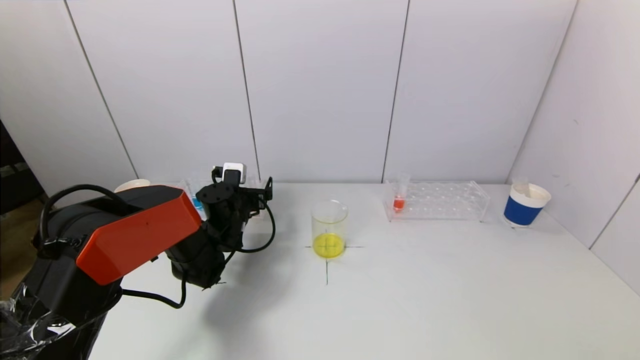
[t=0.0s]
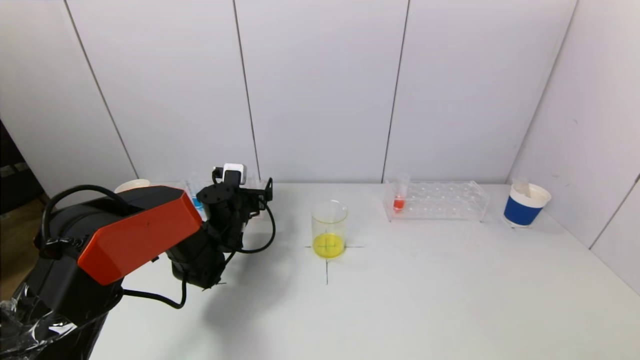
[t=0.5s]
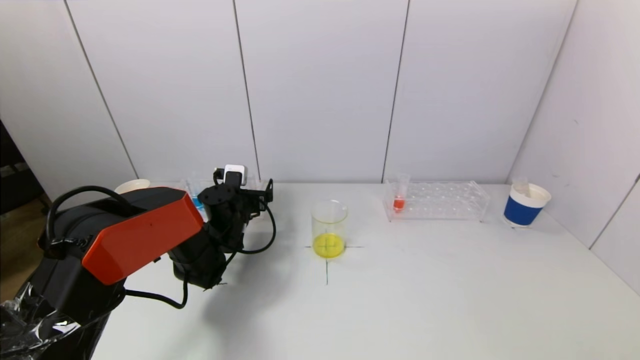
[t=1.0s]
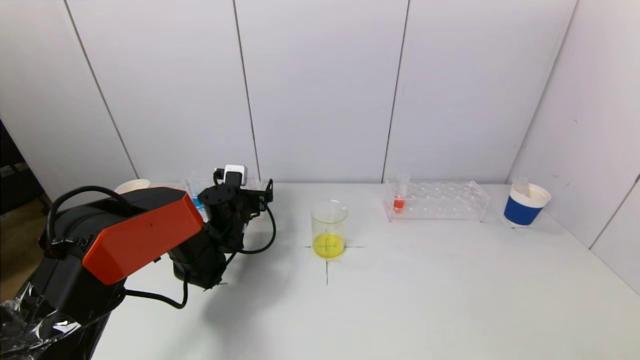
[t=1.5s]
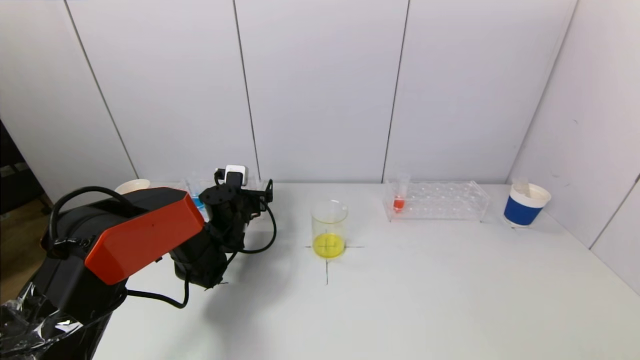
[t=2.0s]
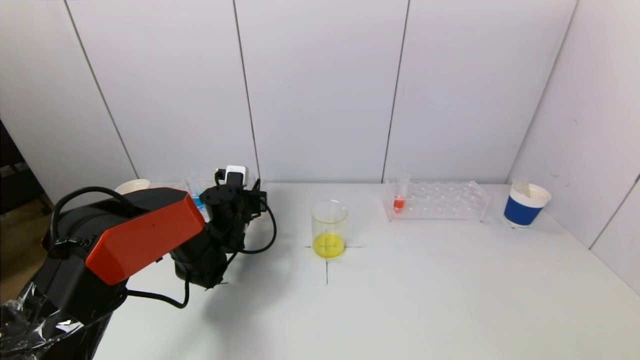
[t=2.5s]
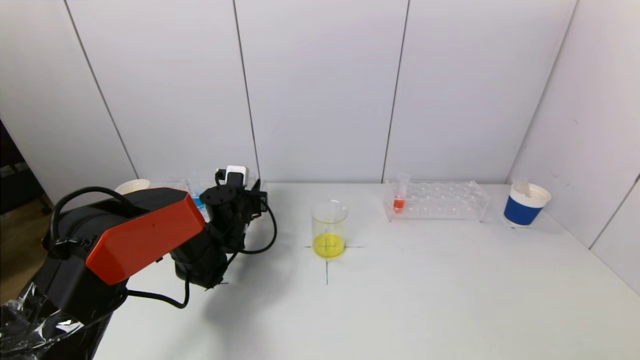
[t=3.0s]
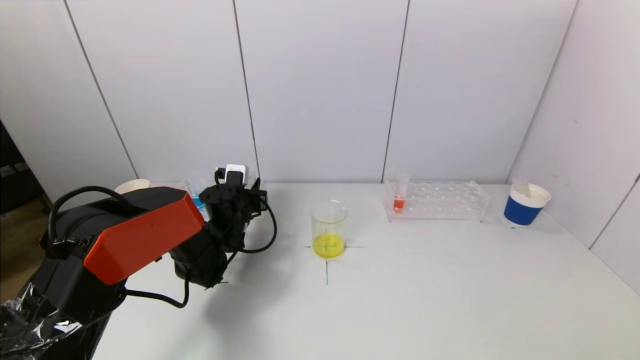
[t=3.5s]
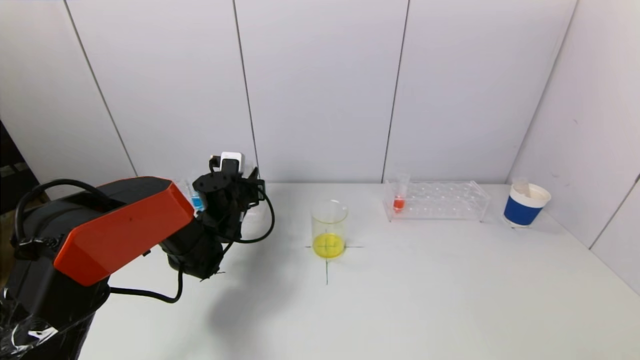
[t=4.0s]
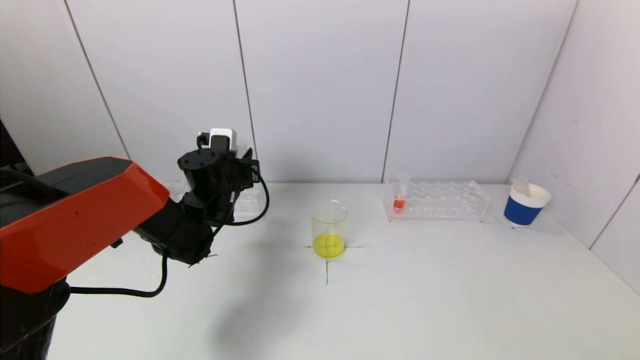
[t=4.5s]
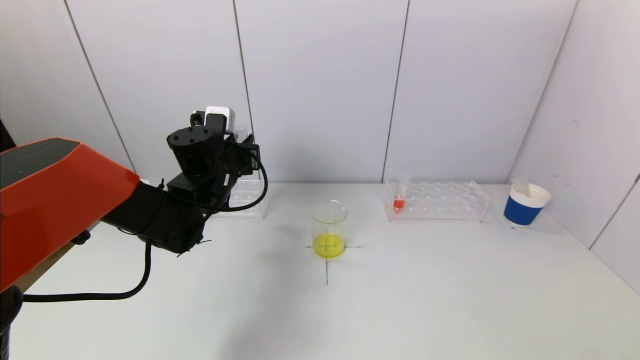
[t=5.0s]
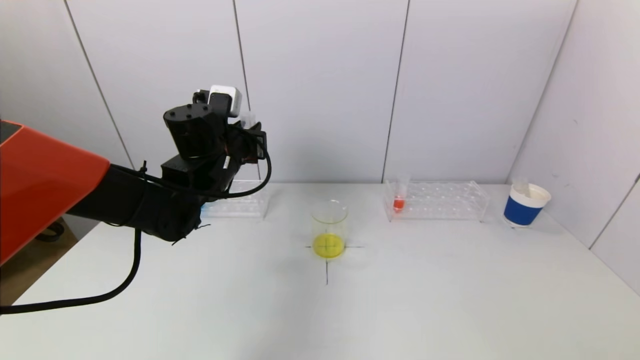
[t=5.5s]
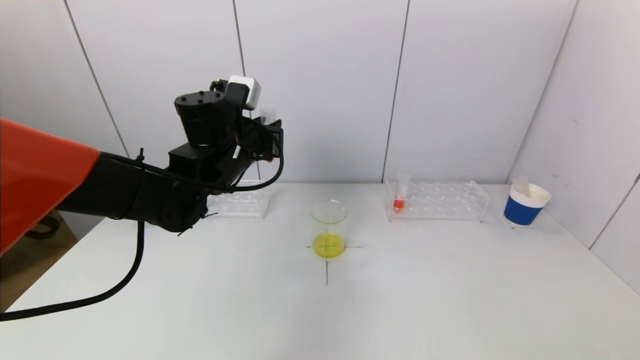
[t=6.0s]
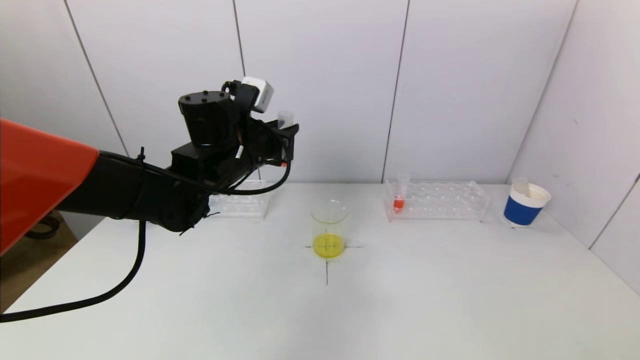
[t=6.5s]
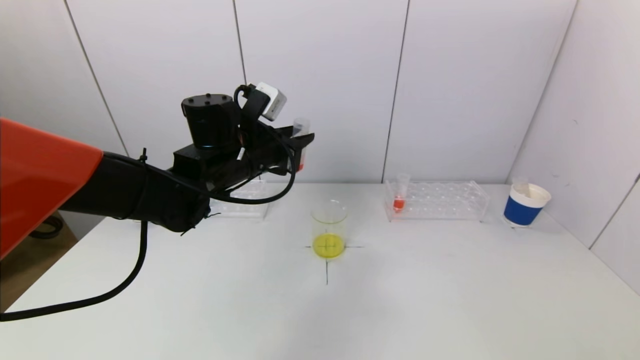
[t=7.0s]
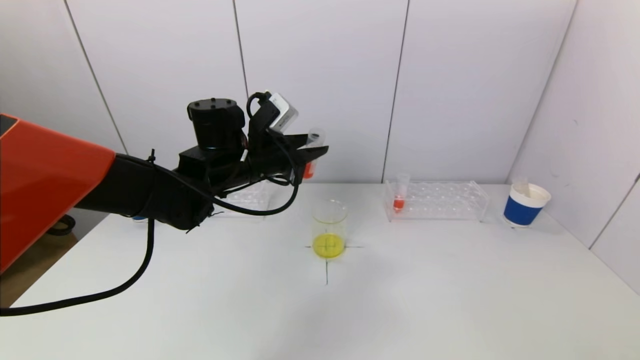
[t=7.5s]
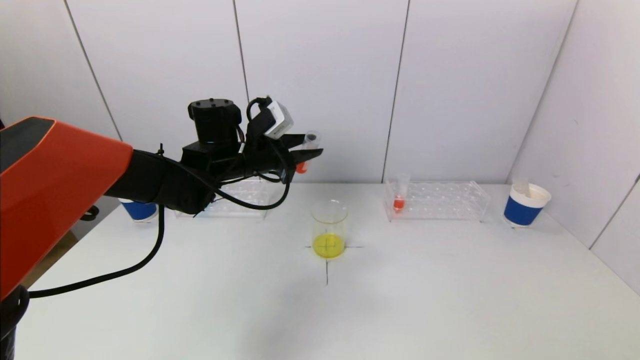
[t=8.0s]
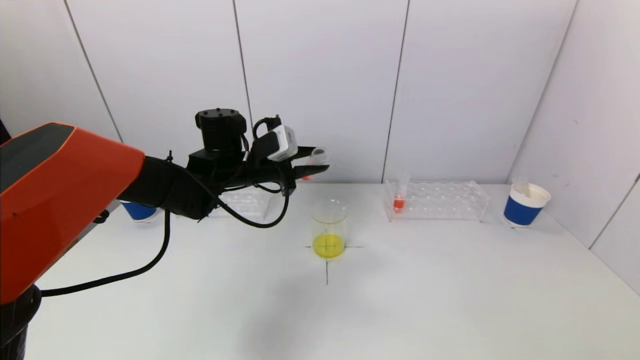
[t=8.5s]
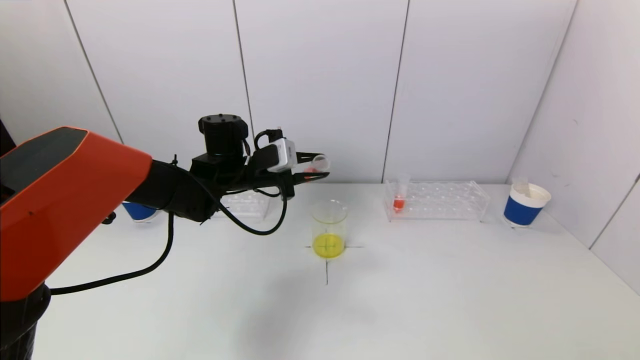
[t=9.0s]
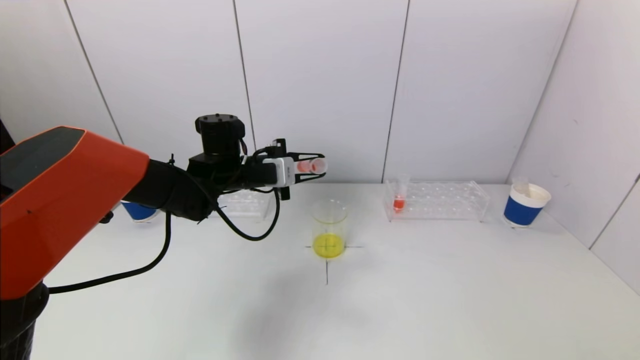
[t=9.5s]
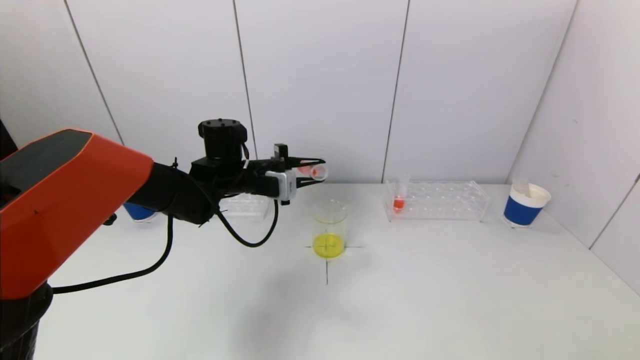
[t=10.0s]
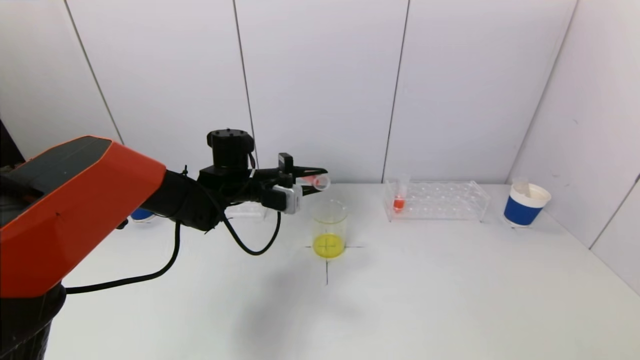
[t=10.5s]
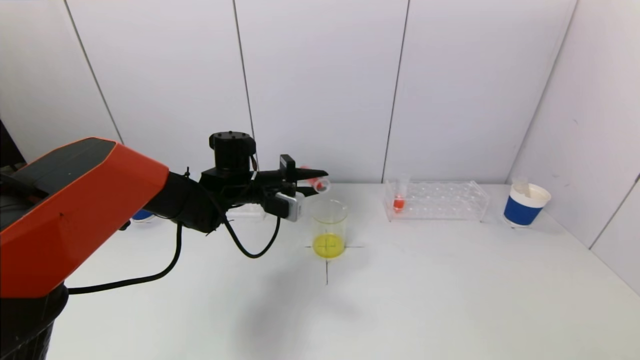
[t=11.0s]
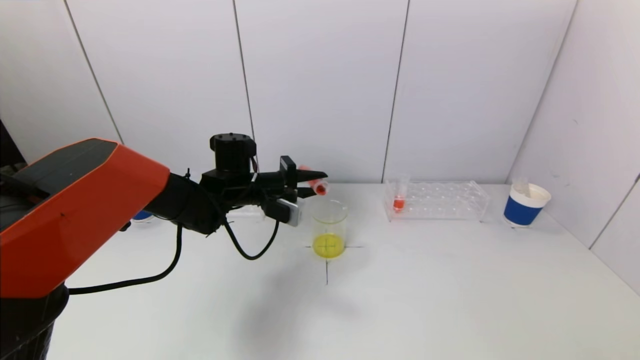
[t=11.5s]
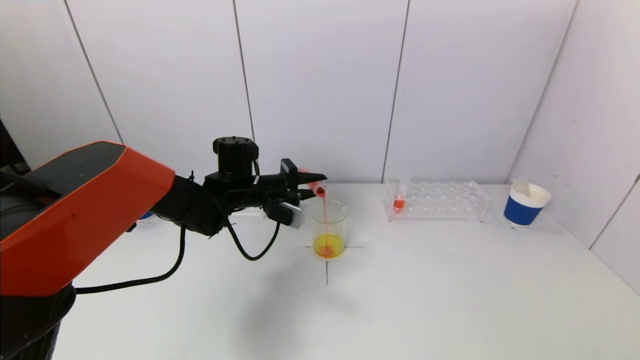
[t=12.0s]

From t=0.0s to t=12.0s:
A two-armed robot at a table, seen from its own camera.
Task of the whole recording: pick up a test tube with pigment on left test tube rack and a test tube with pigment on right test tube rack by grippers and pour them into the beaker.
Step, from t=0.0s to t=3.0s: Grasp the red reagent with the left gripper.
From t=0.0s to t=2.0s: Both grippers stay about where they are.
From t=2.0s to t=4.0s: The left gripper closes up.
From t=4.0s to t=6.0s: The left gripper moves upward, approximately 15 cm.
From t=10.0s to t=12.0s: The grippers move only a little.

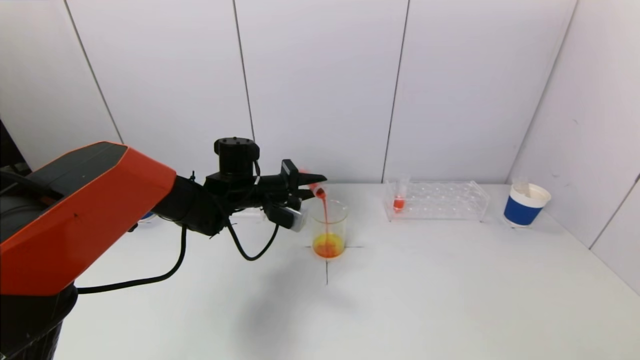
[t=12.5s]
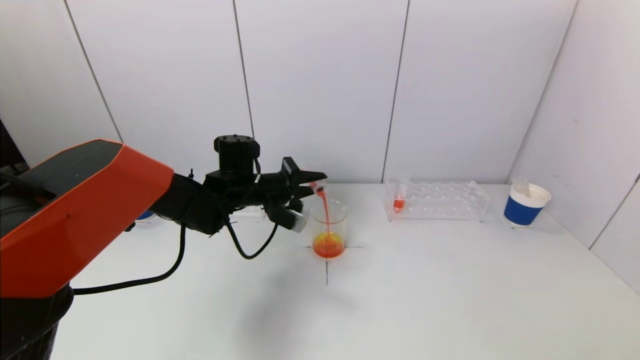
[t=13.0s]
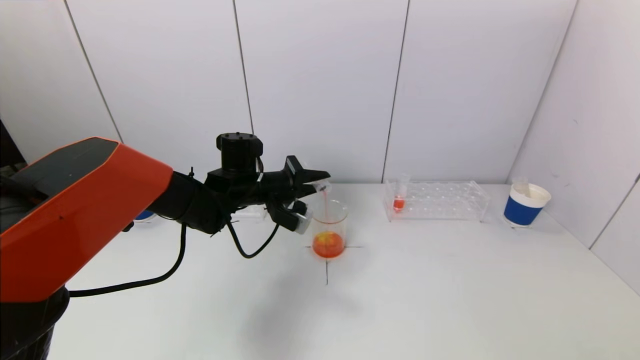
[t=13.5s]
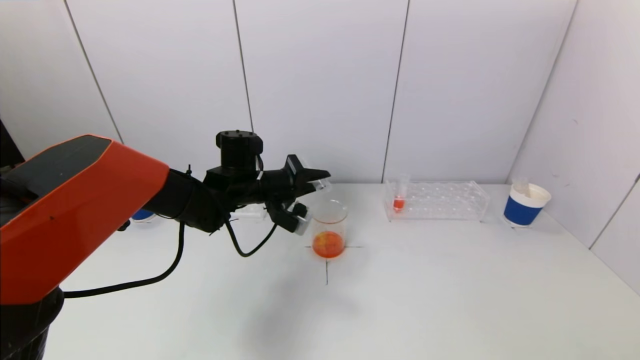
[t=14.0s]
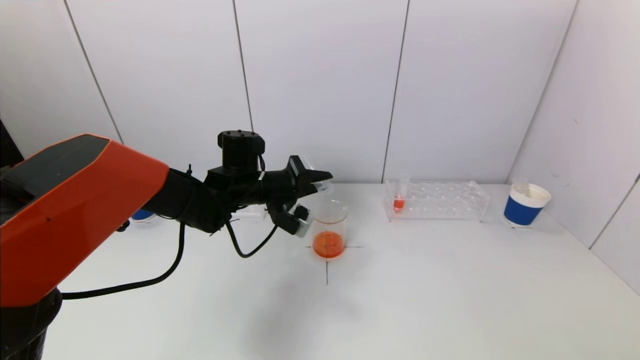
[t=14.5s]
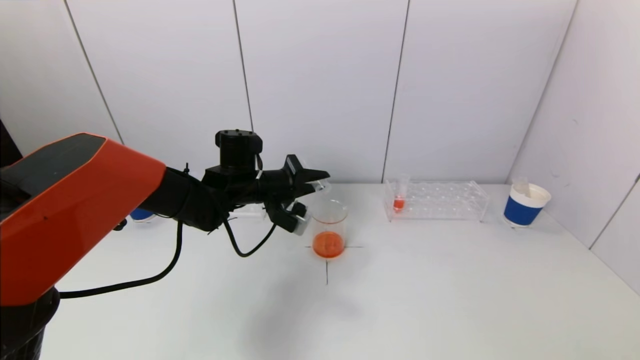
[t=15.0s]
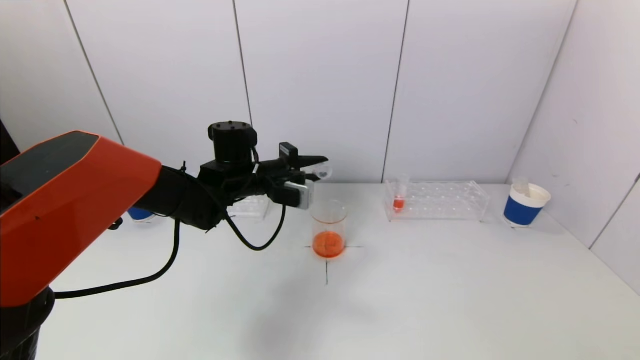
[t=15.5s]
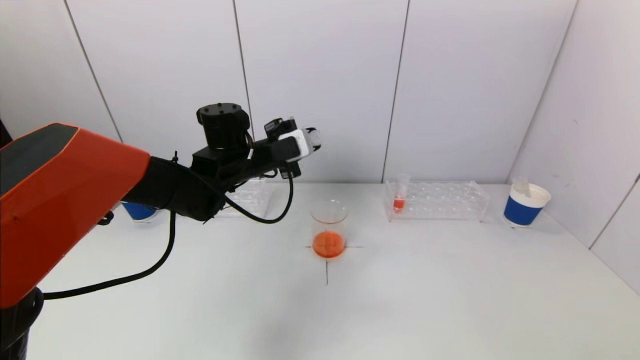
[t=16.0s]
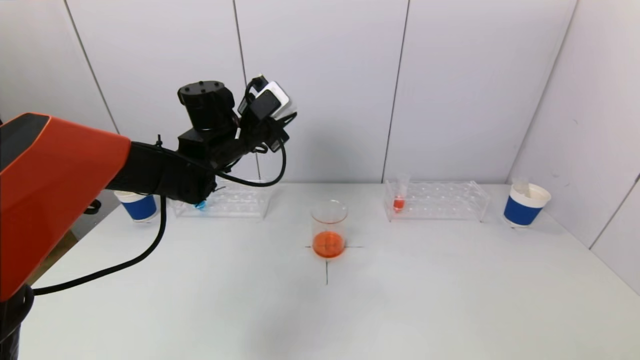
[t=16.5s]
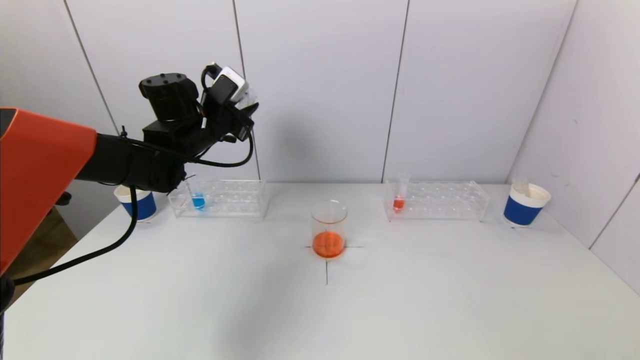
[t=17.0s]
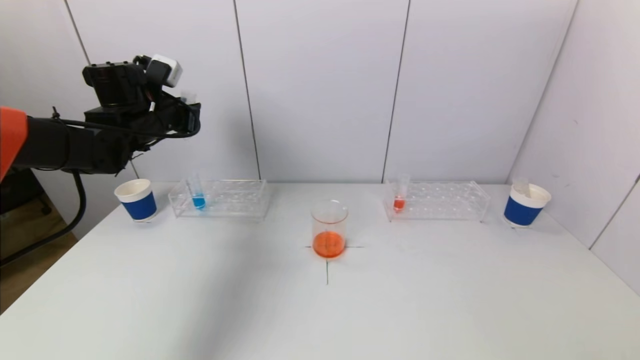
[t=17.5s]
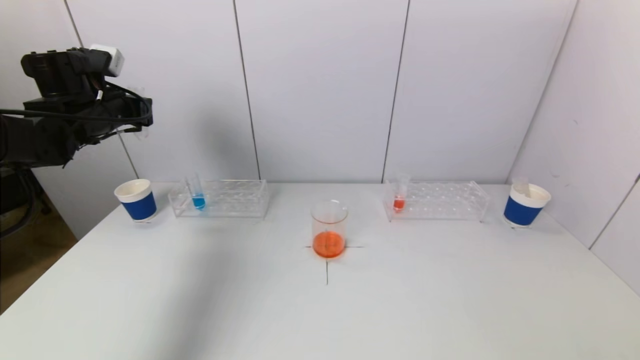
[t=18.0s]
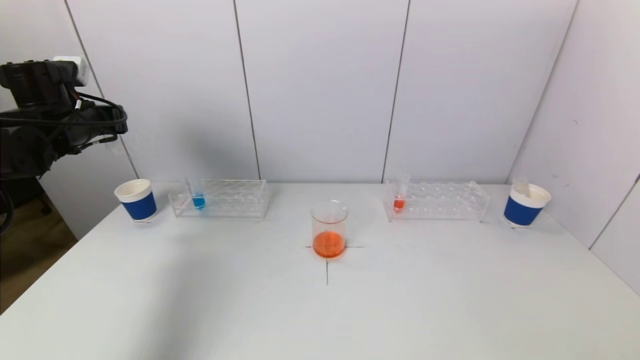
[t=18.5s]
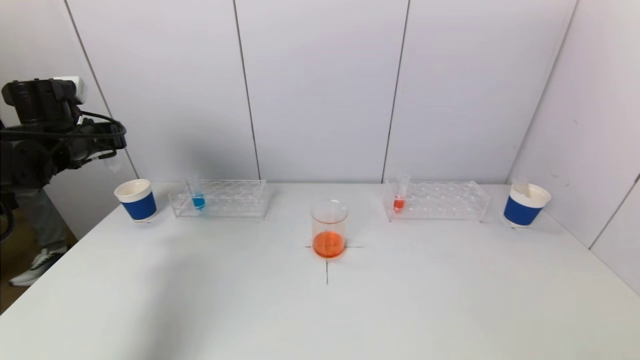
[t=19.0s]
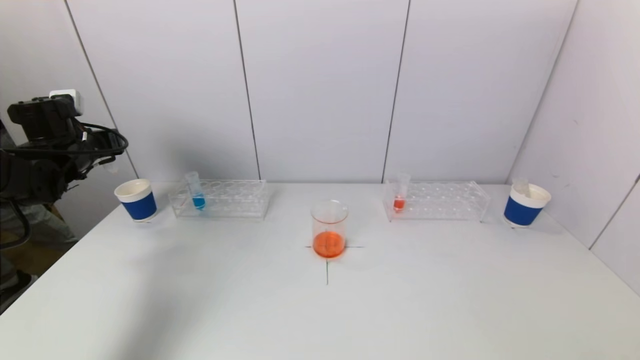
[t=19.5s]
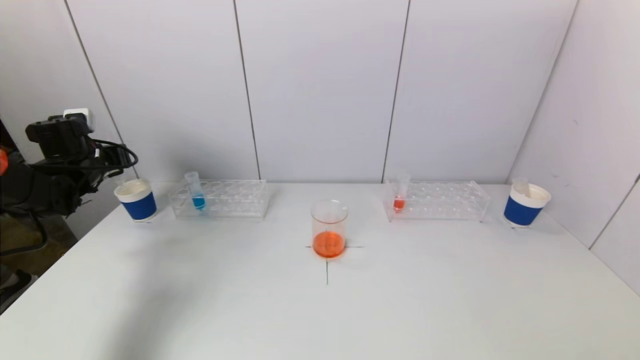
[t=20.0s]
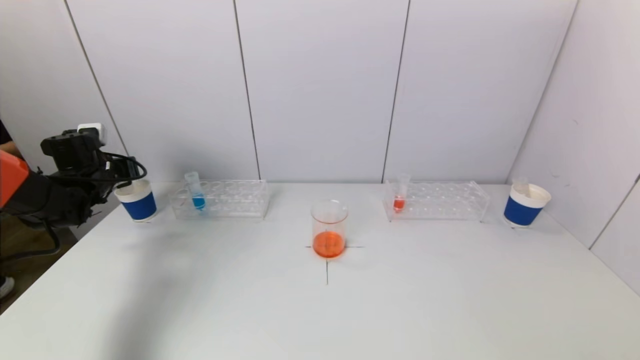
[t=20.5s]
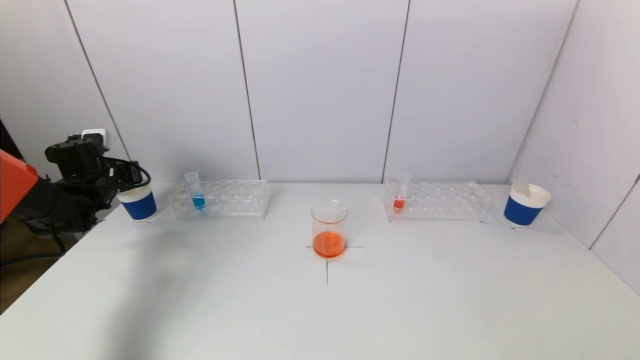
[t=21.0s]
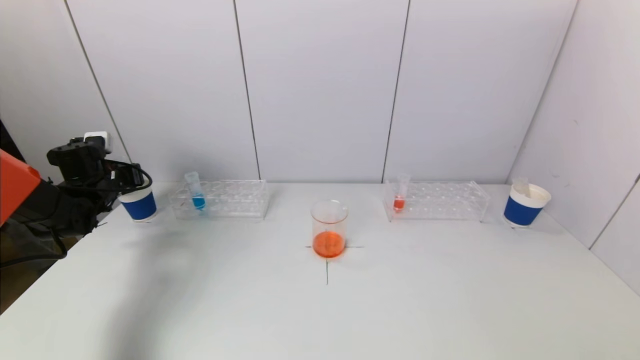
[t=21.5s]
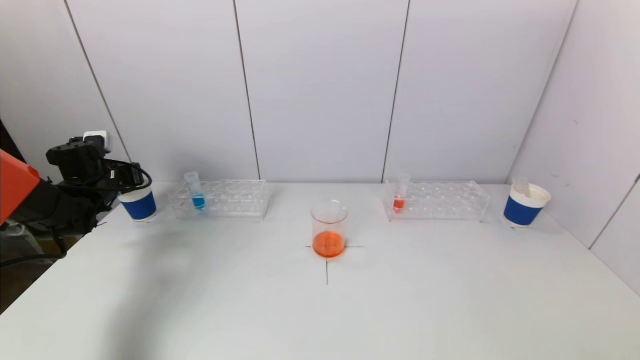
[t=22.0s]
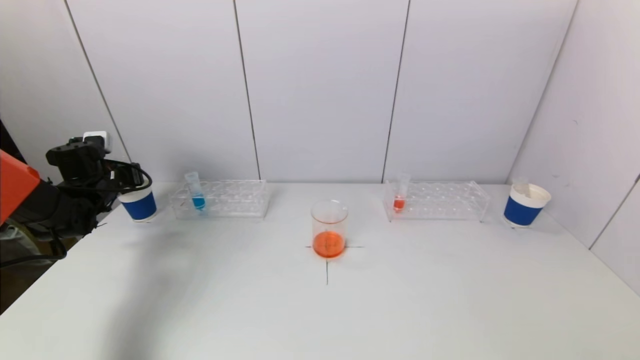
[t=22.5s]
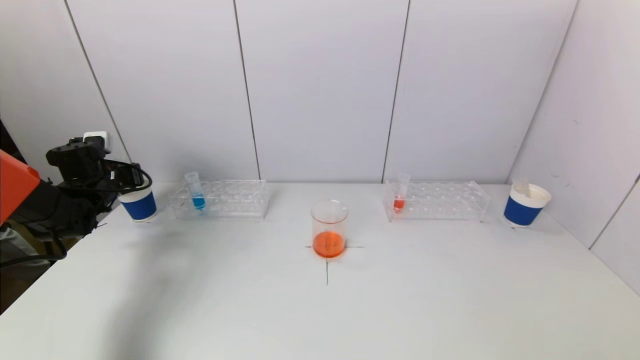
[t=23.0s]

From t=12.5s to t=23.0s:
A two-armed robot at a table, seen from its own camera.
Task of the whole recording: pick up a test tube with pigment on left test tube rack and a test tube with pigment on right test tube rack by grippers and pour them into the beaker.
From t=12.5s to t=14.5s: The grippers make only small movements.
From t=14.5s to t=16.5s: The left gripper moves upward, roughly 10 cm.
From t=16.5s to t=19.0s: The left gripper is displaced to the left by about 25 cm.
From t=19.0s to t=21.0s: The left gripper goes roughly 10 cm downward.
From t=21.0s to t=23.0s: Both grippers stay put.
